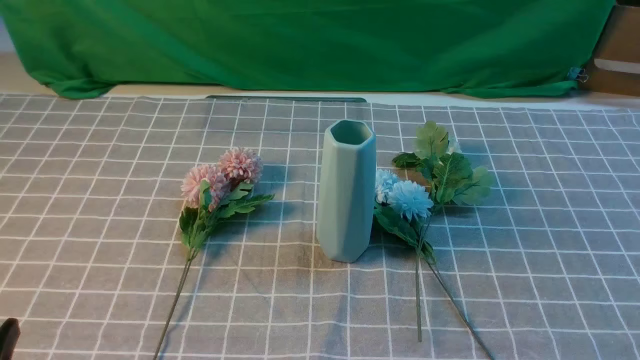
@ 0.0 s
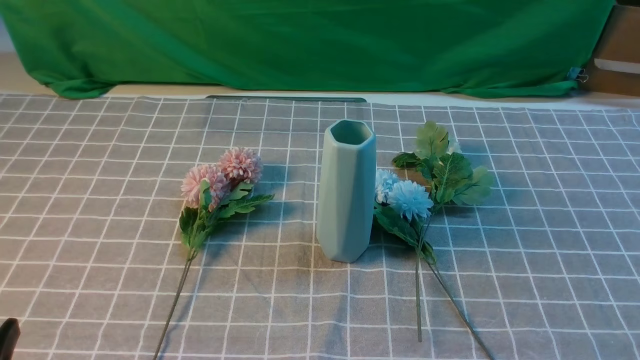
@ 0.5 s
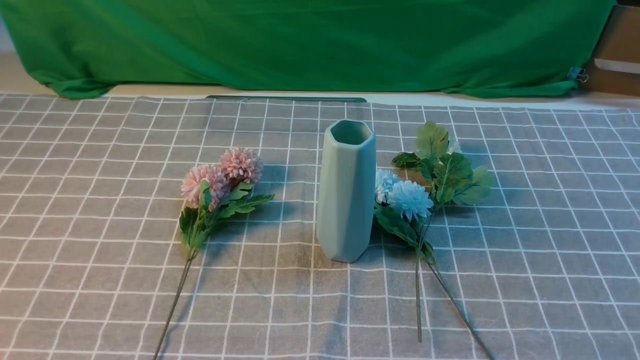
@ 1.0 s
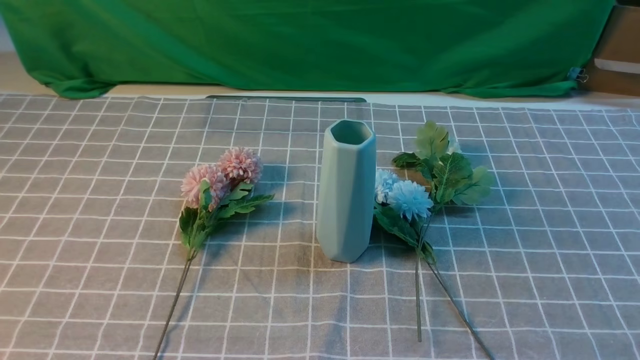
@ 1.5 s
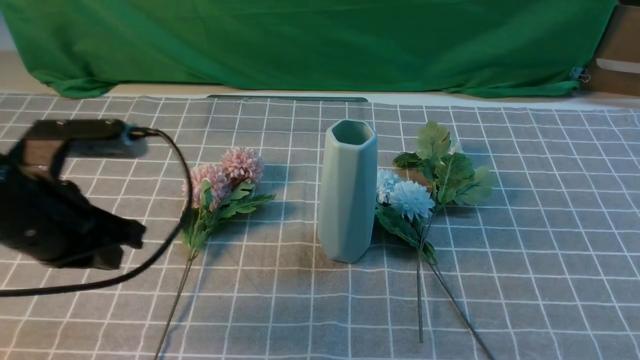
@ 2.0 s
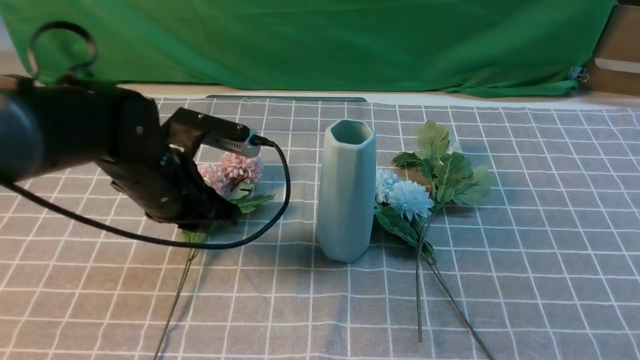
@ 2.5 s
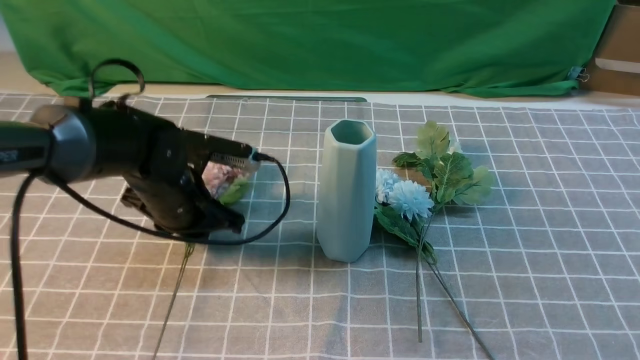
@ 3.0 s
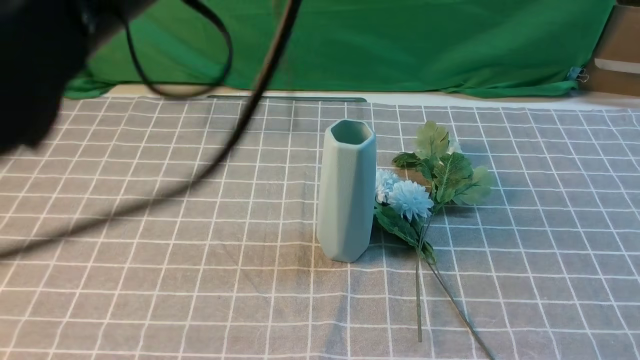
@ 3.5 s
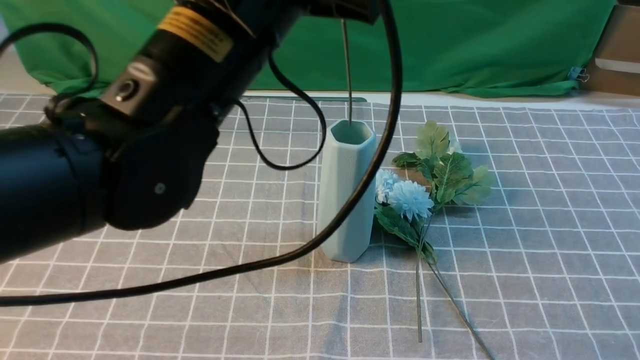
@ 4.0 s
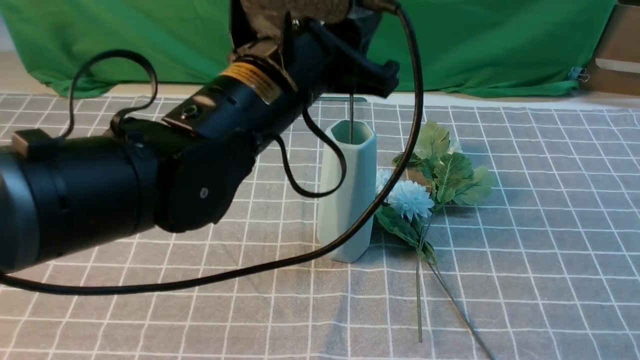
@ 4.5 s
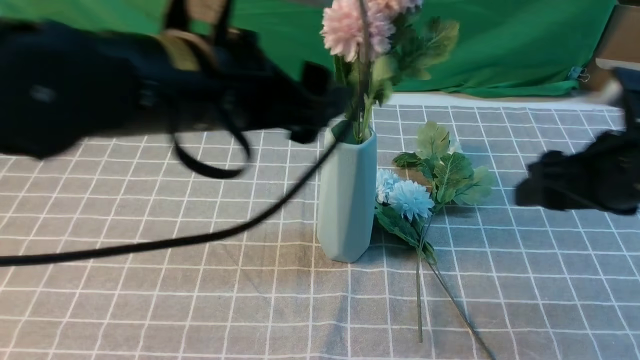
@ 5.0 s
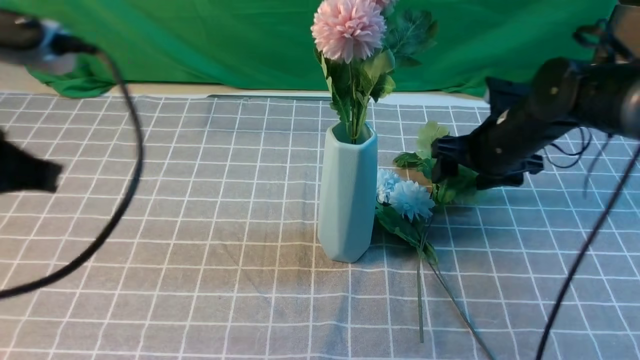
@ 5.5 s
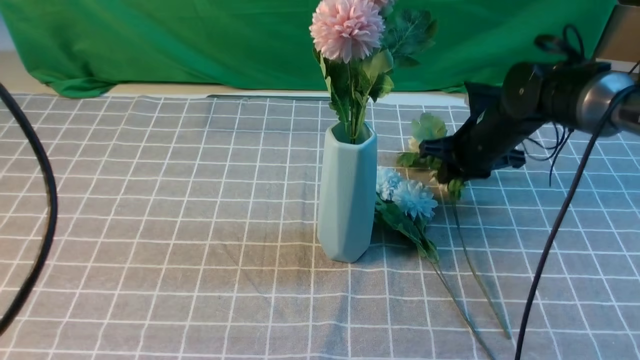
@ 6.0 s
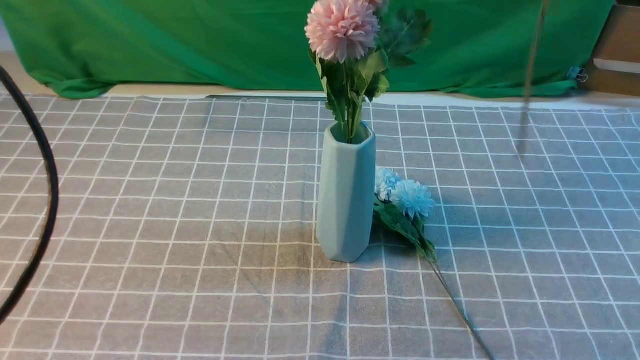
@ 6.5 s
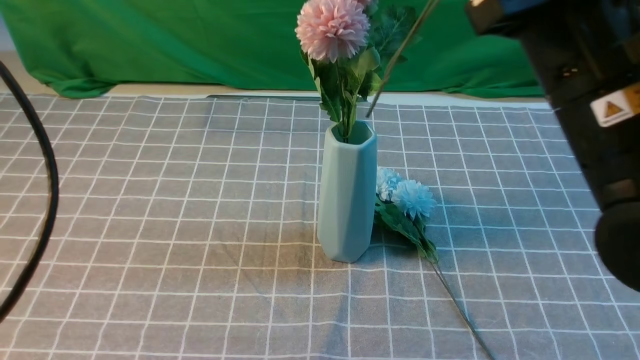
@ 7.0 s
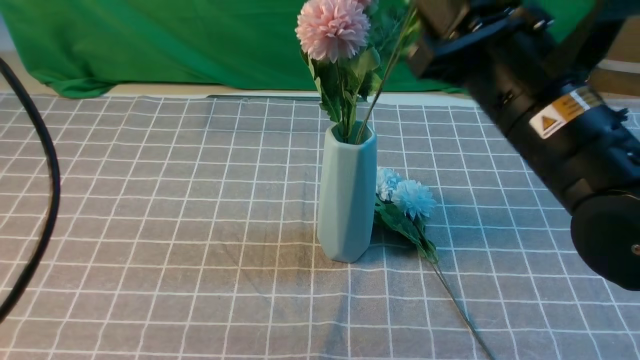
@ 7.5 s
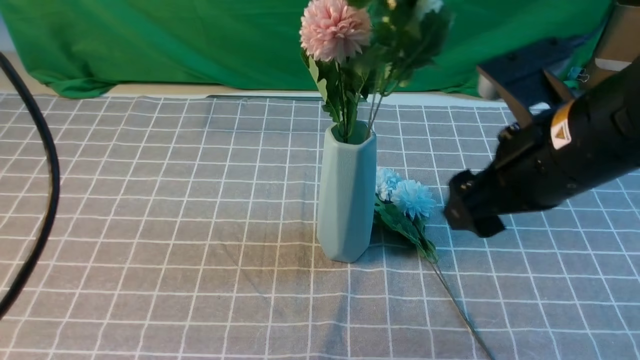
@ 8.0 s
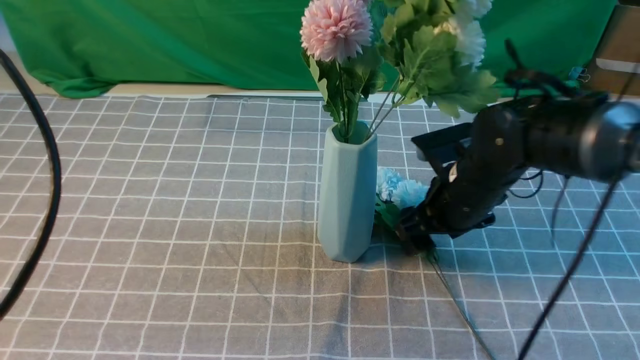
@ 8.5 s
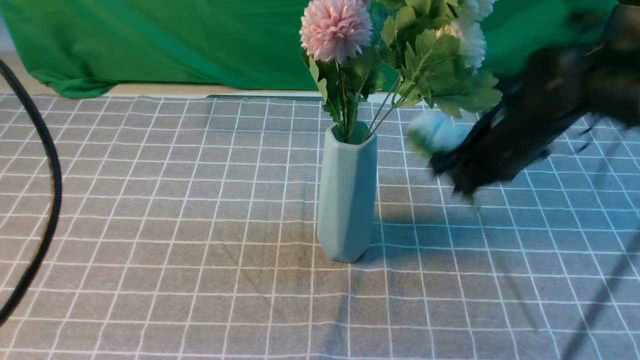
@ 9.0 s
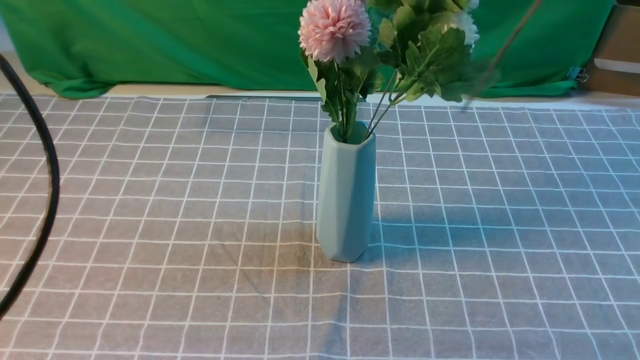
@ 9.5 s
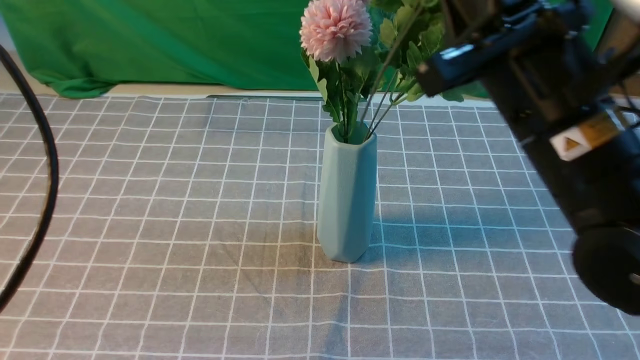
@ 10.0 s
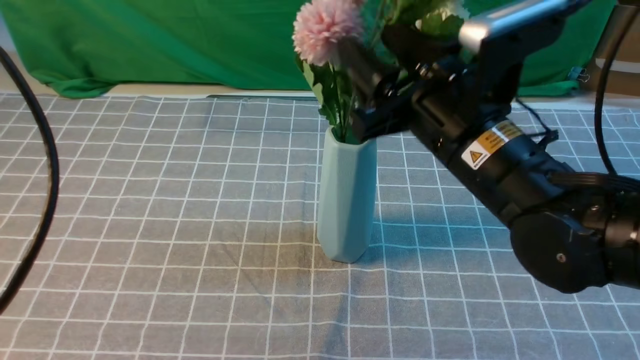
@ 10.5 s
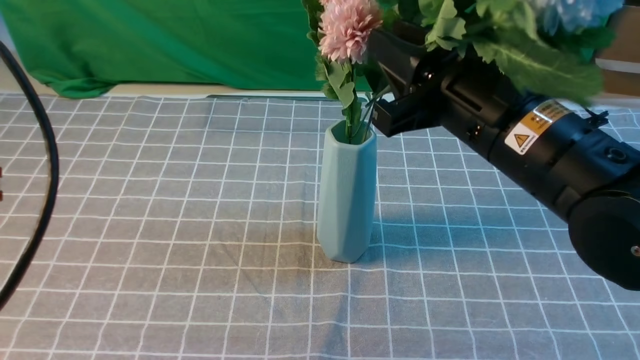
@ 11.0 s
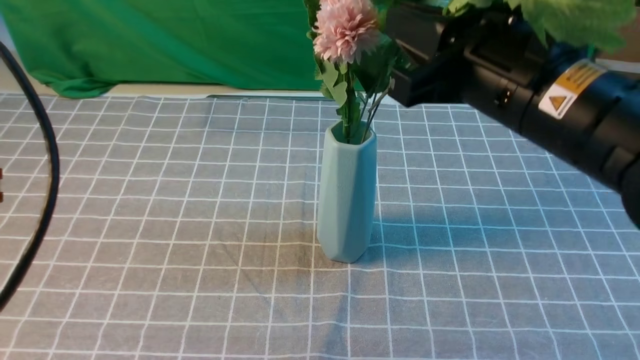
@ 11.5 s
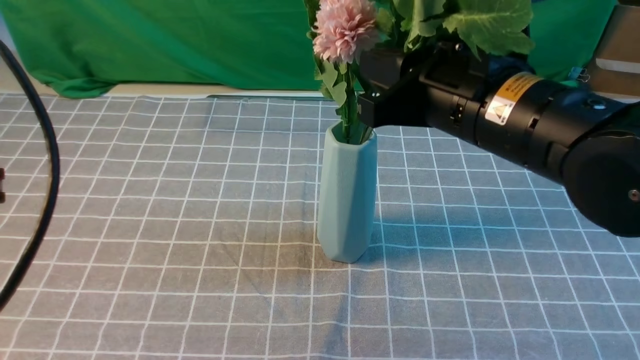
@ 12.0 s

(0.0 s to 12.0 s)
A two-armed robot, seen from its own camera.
Task of the whole recording: insert the flowers into the vase on the table with the grey tablecloth.
Step, 0.0 s - 2.5 s: use the left arm to grab a bunch of fresh flowers.
Step, 3.0 s - 4.5 s: use the left arm to insert the flowers into the vase.
Step, 6.0 s - 7.5 s: use the right arm to insert the flowers into the vase.
Step, 8.0 s - 8.5 s: use the right arm to grab a bunch of fresh flowers.
0.0 s - 2.0 s: The left gripper heads forward and upward, covering about 20 cm, and closes its fingers.
2.0 s - 4.0 s: The right gripper travels upward and forward by some 10 cm; the left gripper moves to the right and upward, approximately 20 cm, and opens, then closes once more.
4.0 s - 6.0 s: The right gripper travels forward by some 35 cm, and opens, then closes once more; the left gripper shifts about 25 cm to the left and backward, and opens, then closes once more.
6.0 s - 8.0 s: The right gripper goes about 20 cm backward and upward, and opens.
8.0 s - 10.0 s: The right gripper swings up and down, about 25 cm each way, with 2 reversals, and closes.
10.0 s - 12.0 s: The right gripper opens, then closes again.

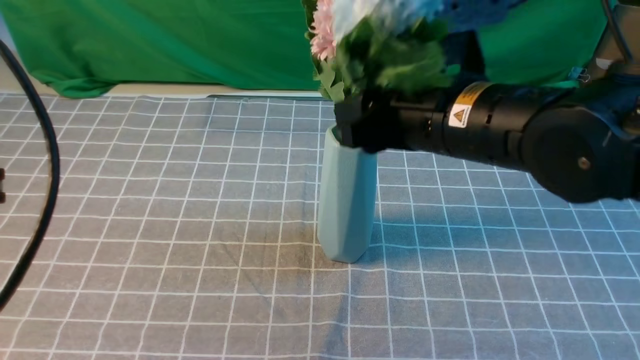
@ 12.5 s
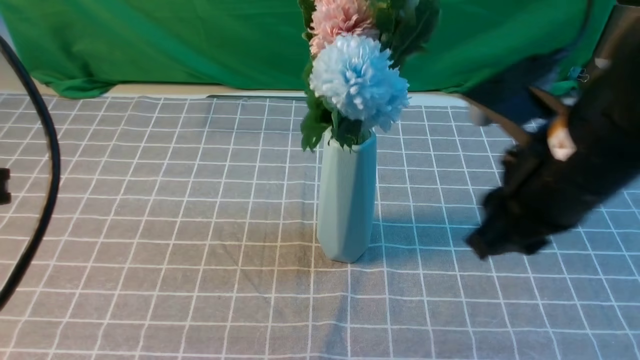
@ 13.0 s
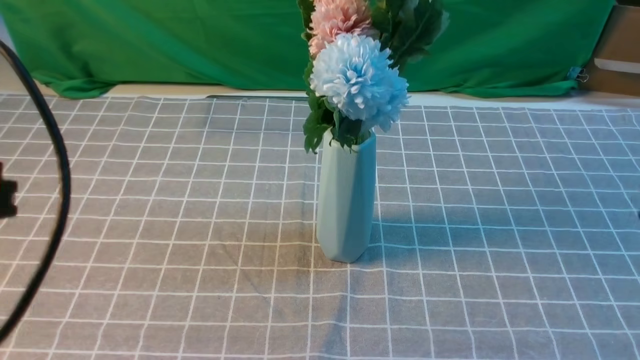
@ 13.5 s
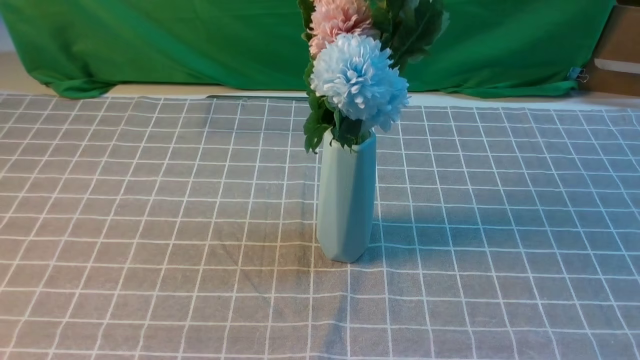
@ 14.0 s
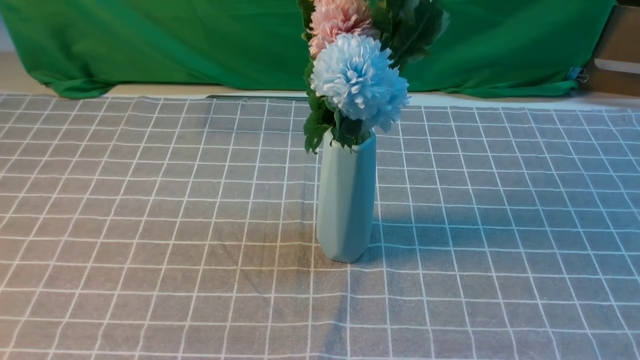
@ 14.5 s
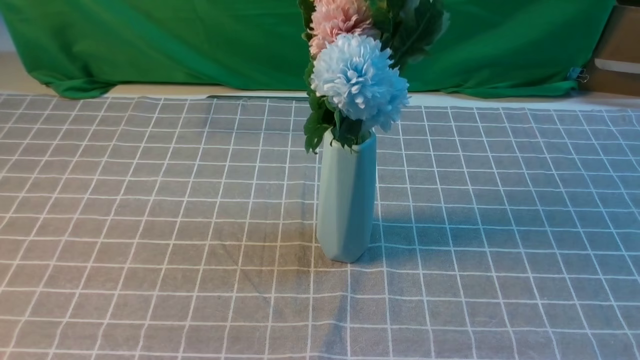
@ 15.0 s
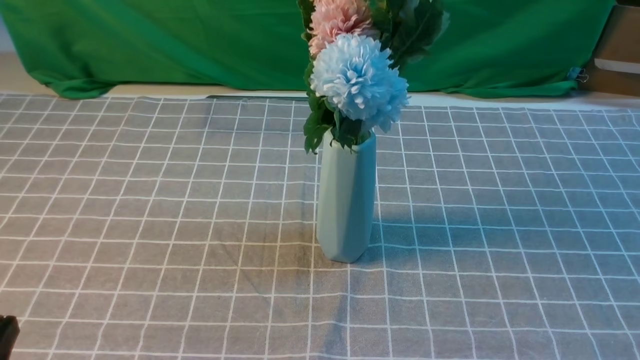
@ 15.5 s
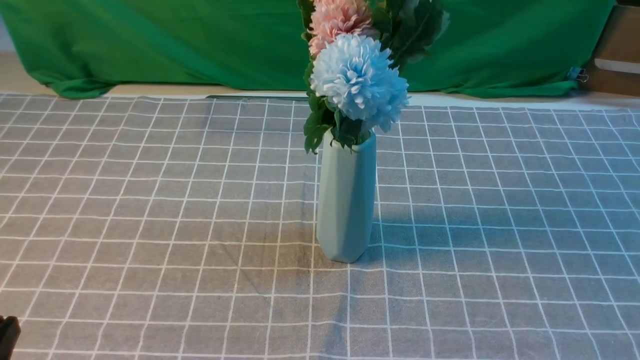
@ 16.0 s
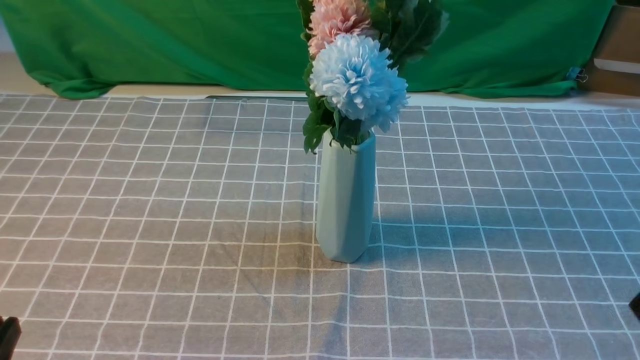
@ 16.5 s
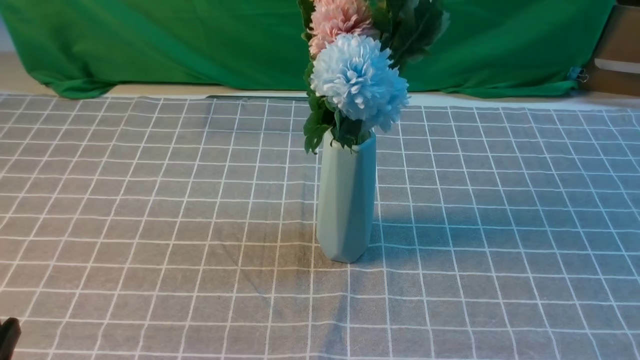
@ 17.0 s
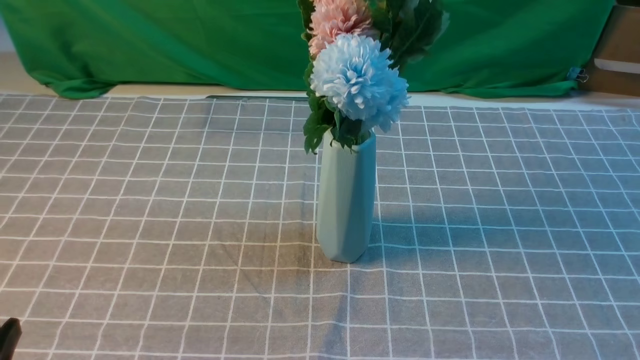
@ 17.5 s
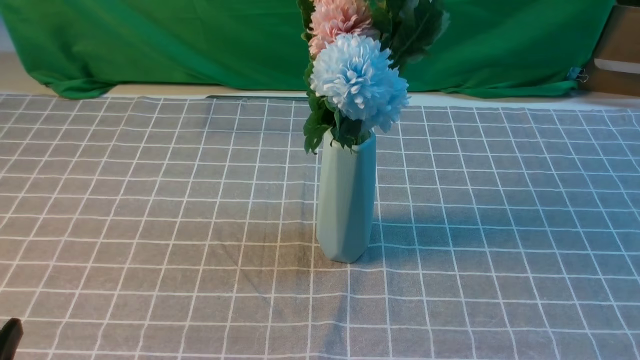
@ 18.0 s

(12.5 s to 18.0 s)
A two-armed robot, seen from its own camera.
Task of the whole recording: insert the flowers into the vase on the table with the grey tablecloth.
12.5 s - 14.5 s: The right gripper heads backward and to the right, covering some 30 cm, while the left gripper moves backward, approximately 10 cm.
